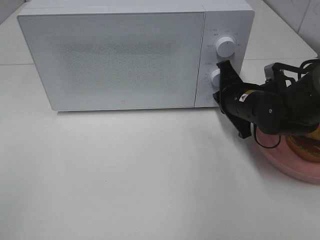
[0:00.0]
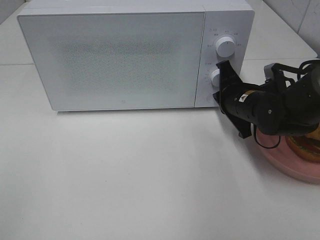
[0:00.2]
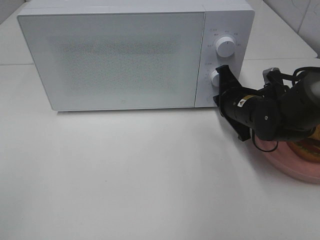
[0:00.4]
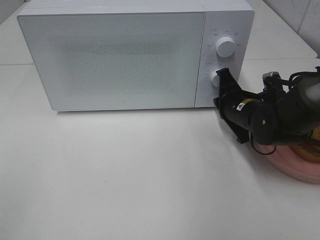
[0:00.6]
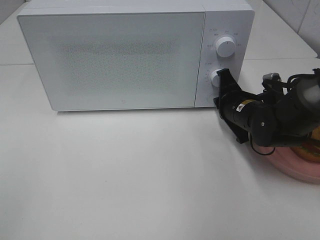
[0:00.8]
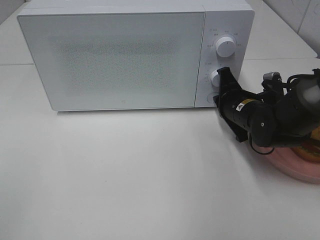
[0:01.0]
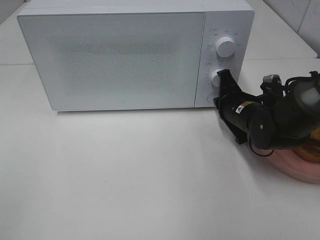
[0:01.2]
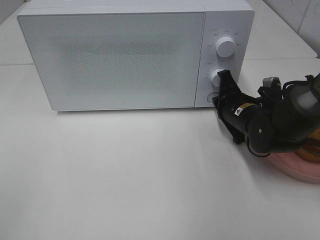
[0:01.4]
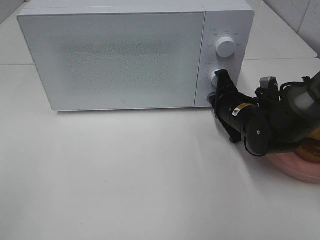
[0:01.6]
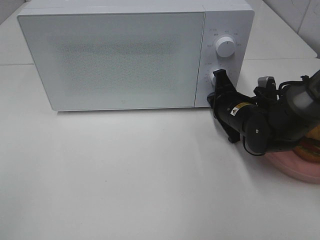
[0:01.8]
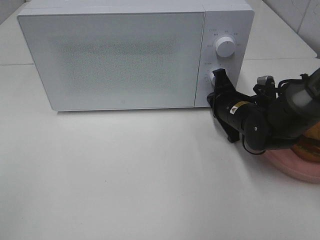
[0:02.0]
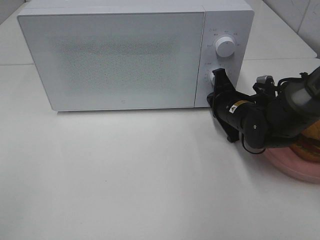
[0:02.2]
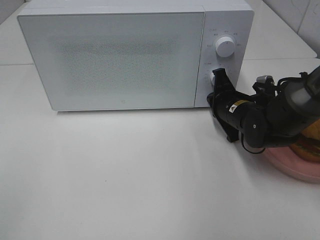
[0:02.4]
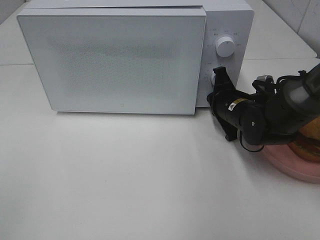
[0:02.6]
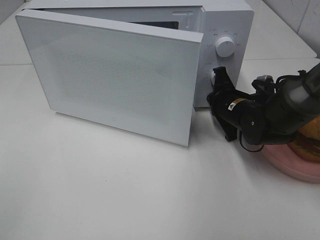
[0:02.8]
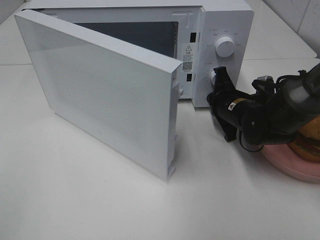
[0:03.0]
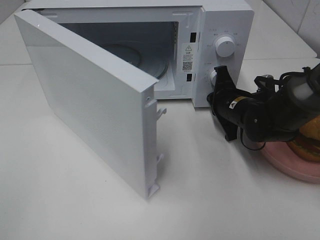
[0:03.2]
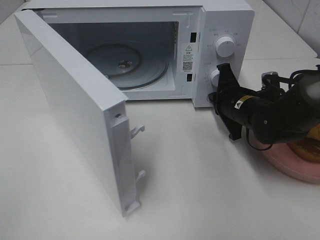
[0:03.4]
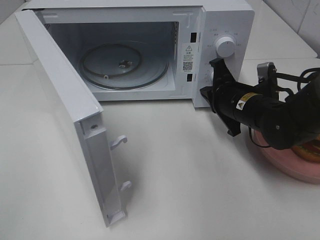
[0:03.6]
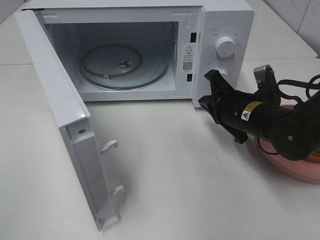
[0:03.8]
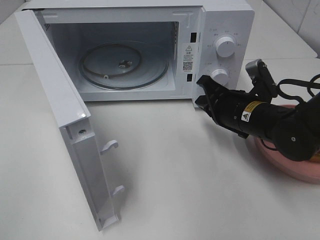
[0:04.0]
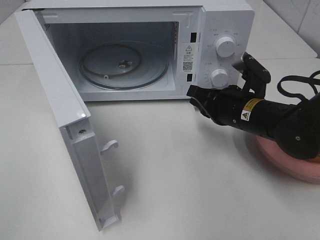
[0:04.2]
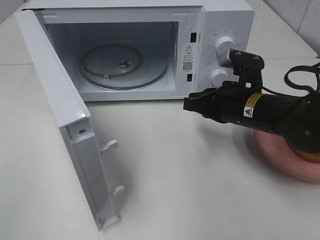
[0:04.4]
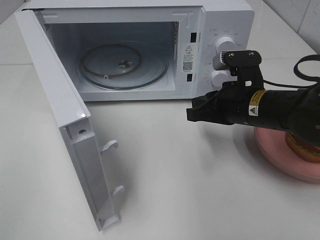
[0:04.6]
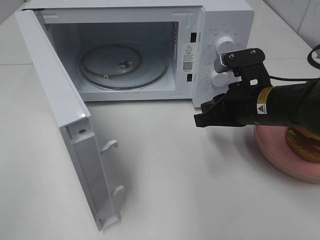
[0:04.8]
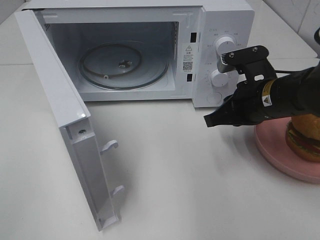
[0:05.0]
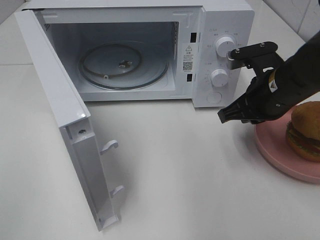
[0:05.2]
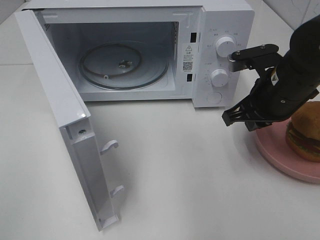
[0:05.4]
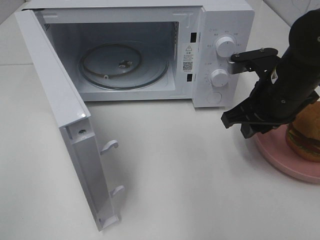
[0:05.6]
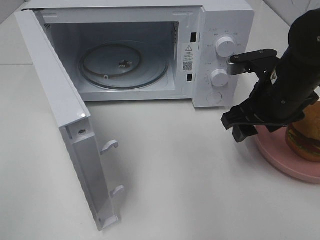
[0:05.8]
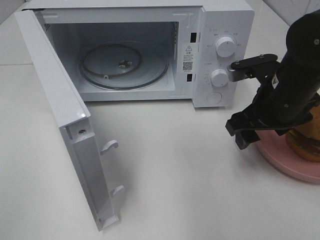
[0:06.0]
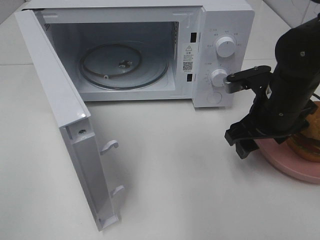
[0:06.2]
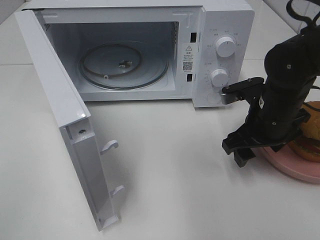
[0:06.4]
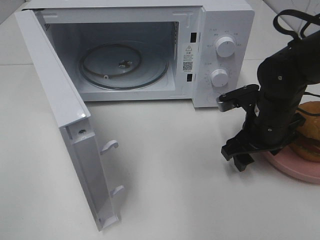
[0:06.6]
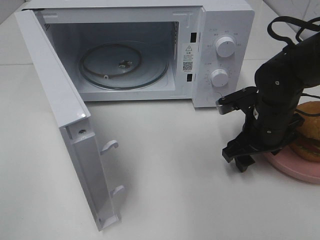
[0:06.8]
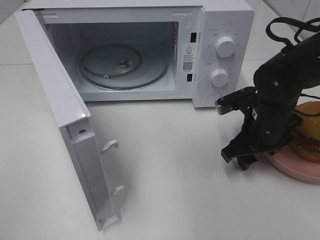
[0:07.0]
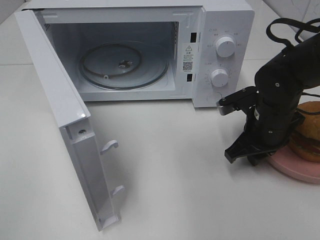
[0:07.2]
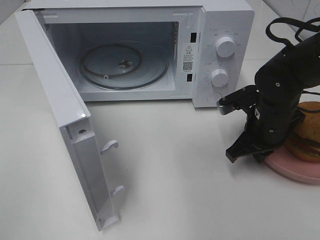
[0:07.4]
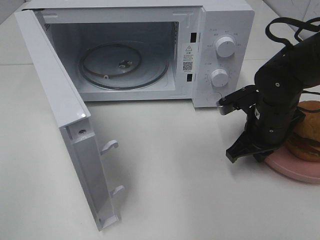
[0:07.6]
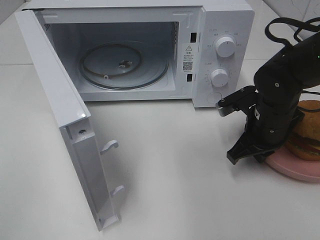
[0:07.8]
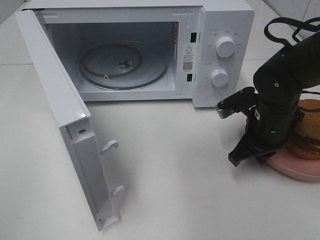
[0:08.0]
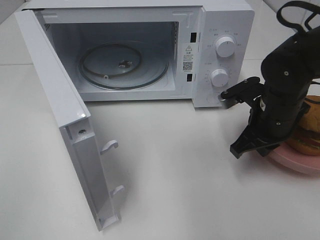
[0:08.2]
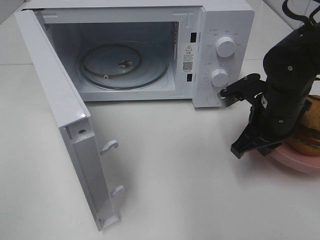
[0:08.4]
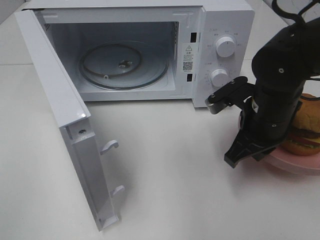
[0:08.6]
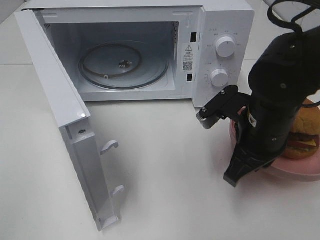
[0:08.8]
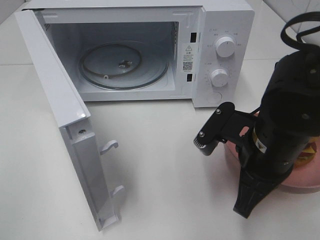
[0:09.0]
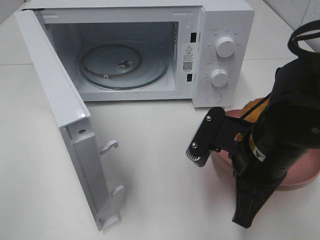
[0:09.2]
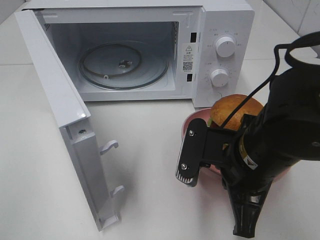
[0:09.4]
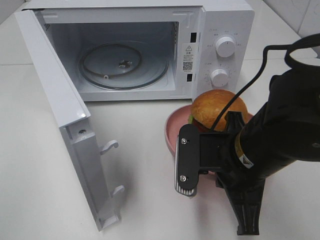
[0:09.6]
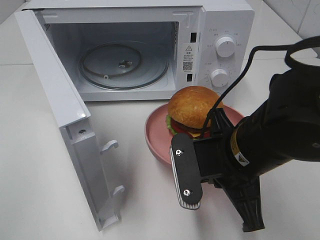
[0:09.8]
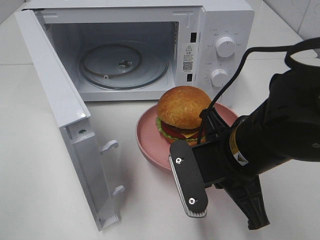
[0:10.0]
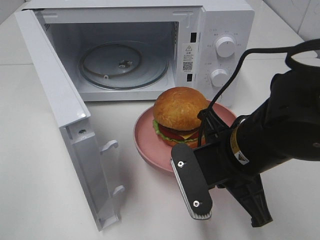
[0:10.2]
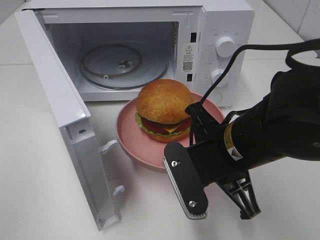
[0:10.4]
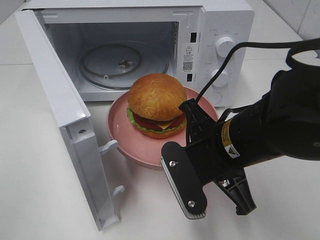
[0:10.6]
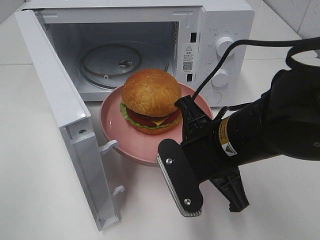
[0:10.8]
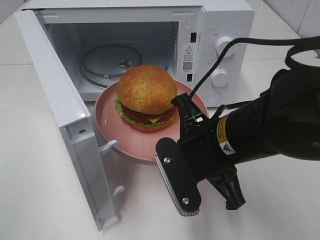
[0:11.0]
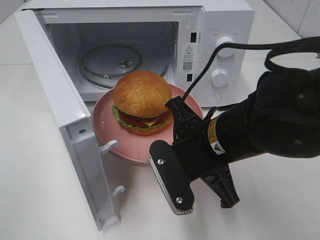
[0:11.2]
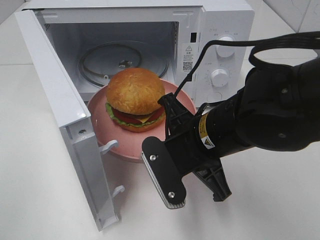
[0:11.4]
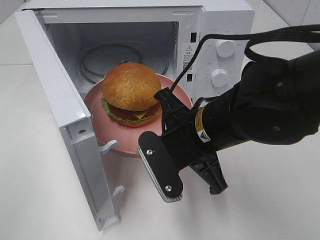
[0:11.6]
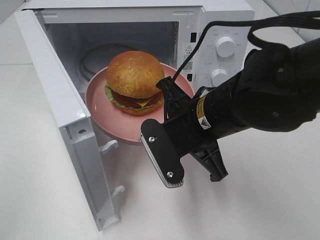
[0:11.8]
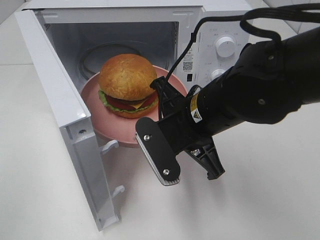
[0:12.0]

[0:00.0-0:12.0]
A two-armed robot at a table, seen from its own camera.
Task of the whole recording: Heat the burger.
Step, 0:00.0 to 0:03.4: Right hand: press the switch.
Step, 0:03.6 to 0:07.2: Right hand: grab the plate with the hamburger.
0:00.0 to 0:03.0: The grippers stay close to where they were, moving slightly.
0:03.0 to 0:04.4: The right gripper shifts approximately 10 cm backward and upward.
0:04.4 to 0:06.0: The right gripper ends up approximately 5 cm from where it was, and opens.
0:06.0 to 0:07.6: The right gripper moves downward, approximately 5 cm, and closes its fingers.
0:07.6 to 0:09.0: The right gripper heads backward and upward, covering some 10 cm.
0:10.4 to 0:12.0: The right gripper changes place by approximately 5 cm.

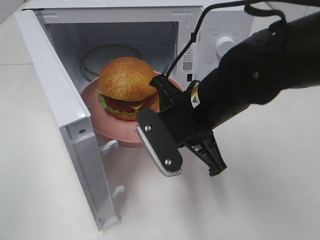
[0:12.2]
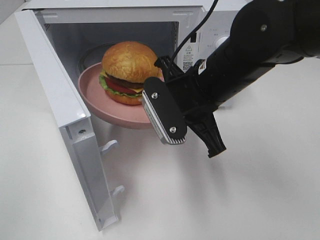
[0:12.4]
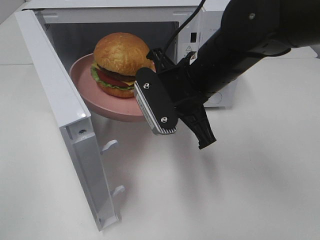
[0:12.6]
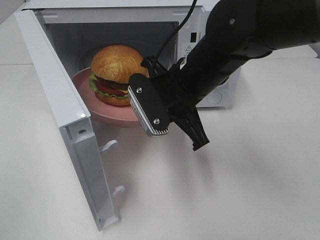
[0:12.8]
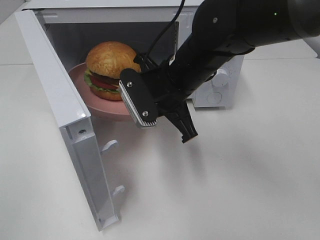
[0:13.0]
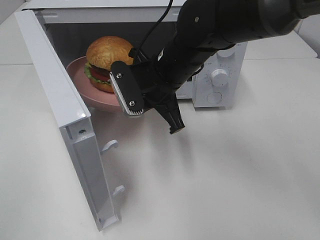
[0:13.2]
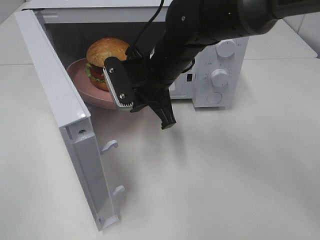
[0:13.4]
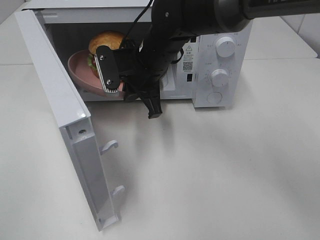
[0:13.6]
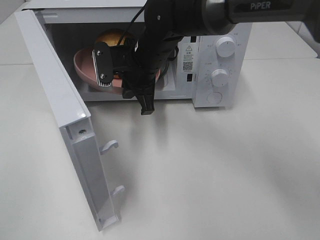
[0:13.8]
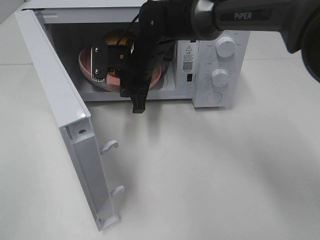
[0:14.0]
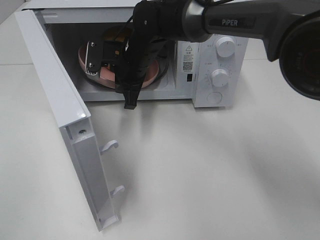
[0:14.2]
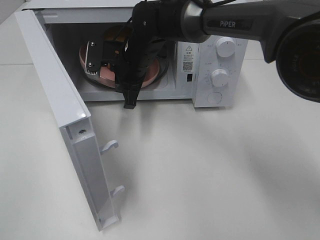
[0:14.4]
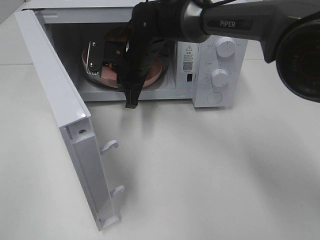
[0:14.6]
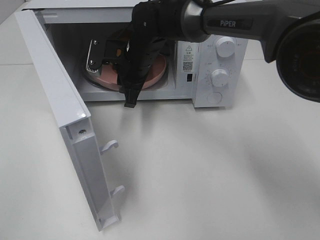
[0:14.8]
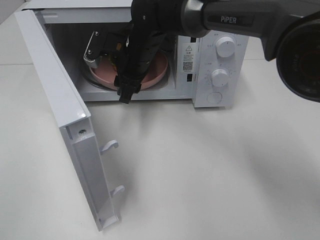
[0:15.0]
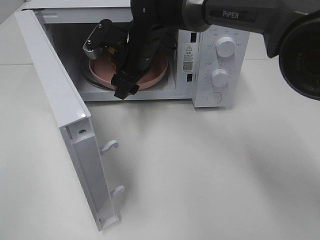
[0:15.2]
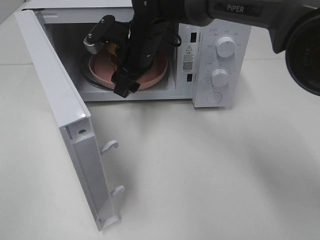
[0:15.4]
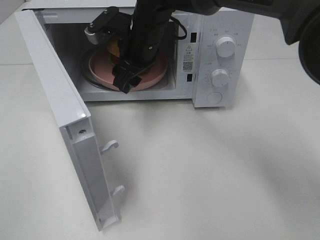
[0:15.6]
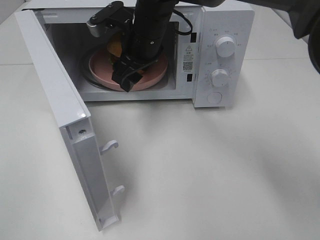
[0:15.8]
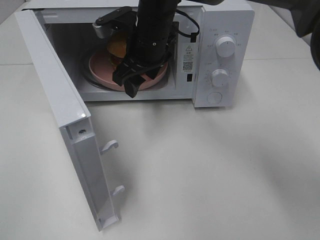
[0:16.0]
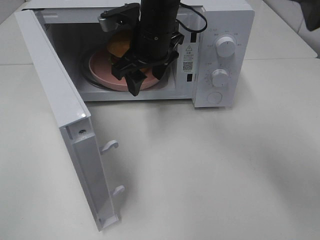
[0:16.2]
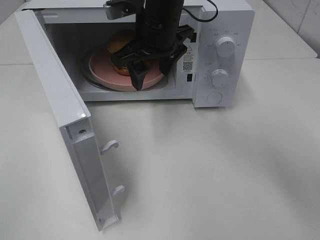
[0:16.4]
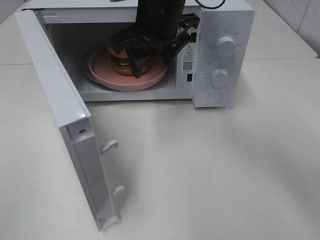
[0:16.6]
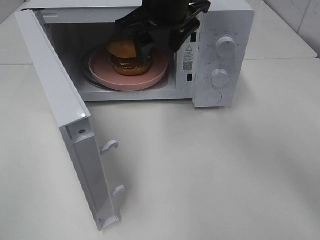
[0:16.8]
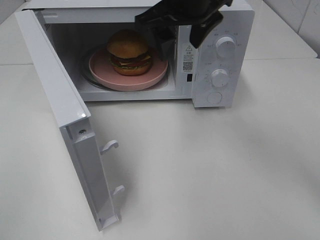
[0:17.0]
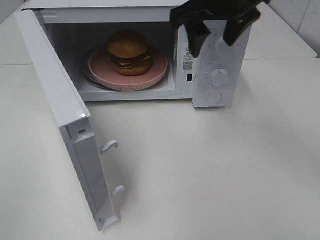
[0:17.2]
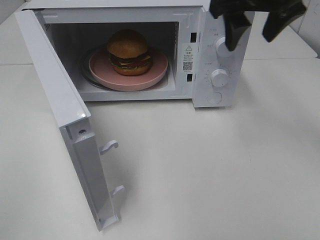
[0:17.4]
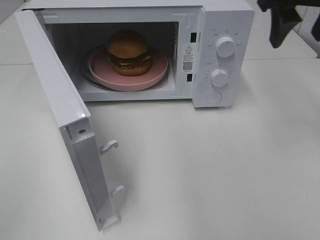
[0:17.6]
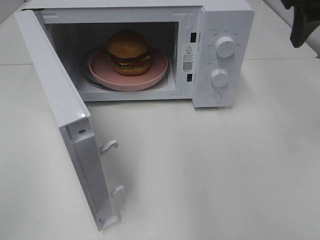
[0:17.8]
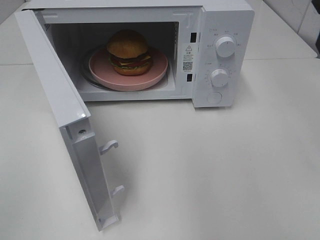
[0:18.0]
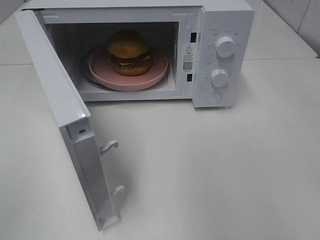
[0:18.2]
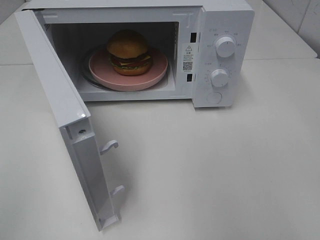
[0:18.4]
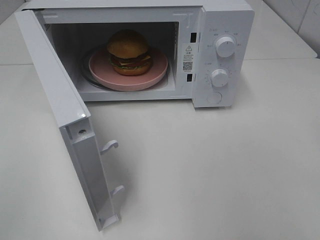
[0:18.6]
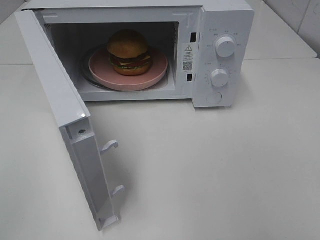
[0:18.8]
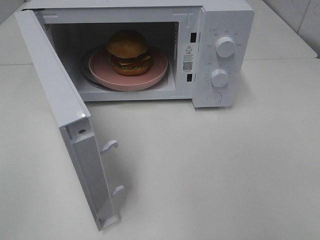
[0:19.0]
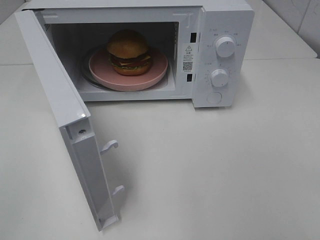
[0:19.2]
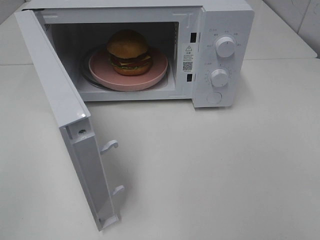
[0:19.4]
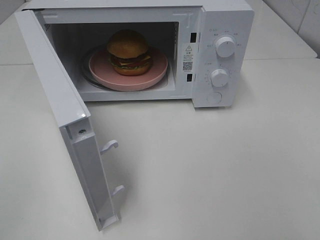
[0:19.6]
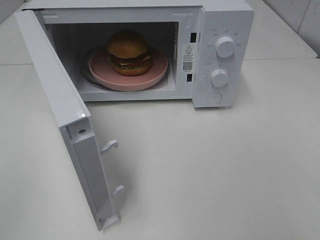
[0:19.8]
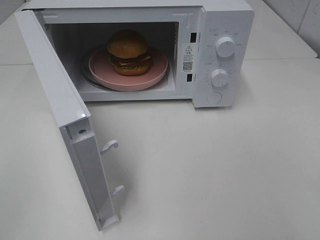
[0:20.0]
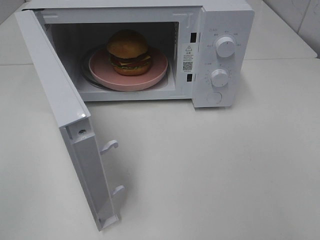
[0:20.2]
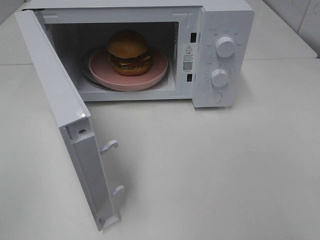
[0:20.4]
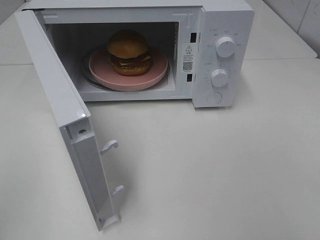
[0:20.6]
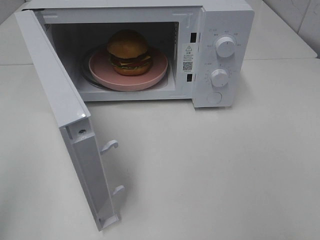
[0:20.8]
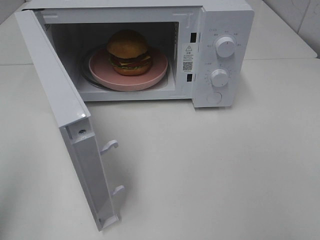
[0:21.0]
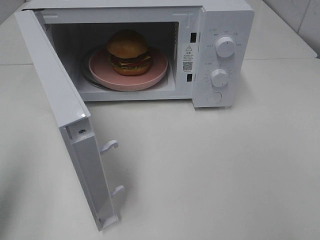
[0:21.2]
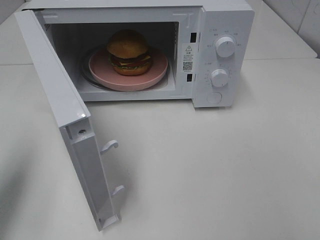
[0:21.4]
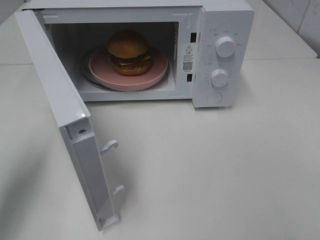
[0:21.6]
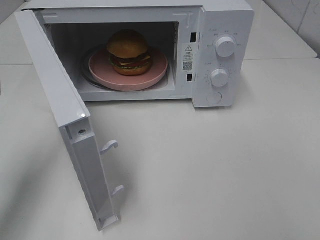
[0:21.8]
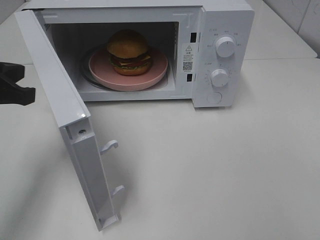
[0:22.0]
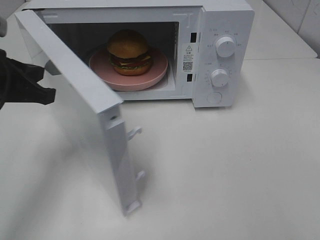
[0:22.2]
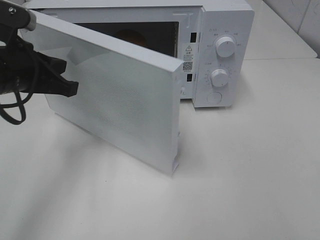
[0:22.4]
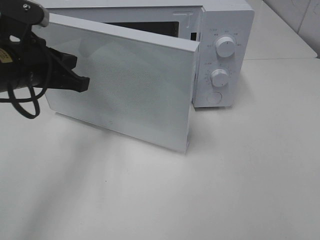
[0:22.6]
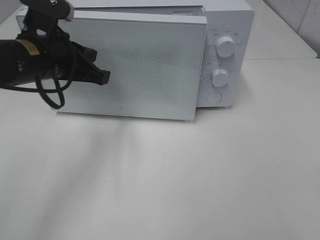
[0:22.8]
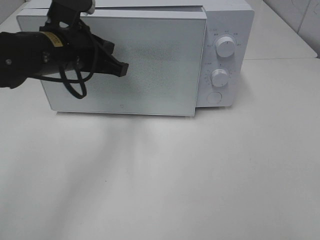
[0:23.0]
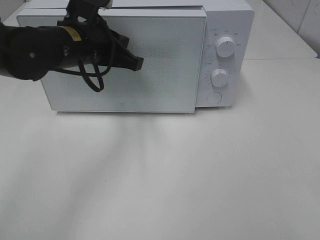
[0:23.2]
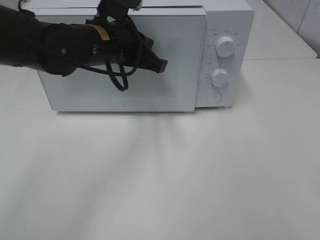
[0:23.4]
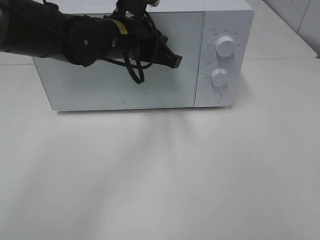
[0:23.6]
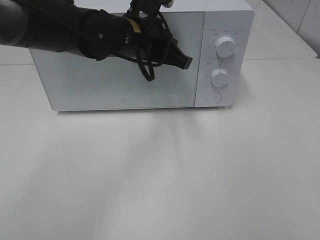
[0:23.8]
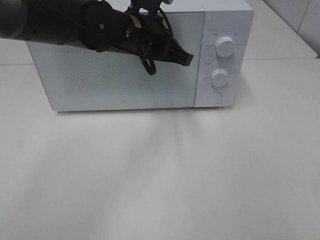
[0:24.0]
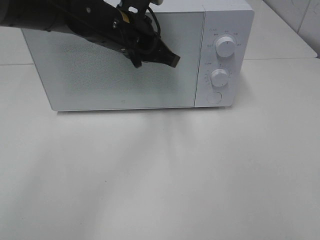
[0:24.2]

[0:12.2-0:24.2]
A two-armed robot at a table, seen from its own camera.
Task of the whole recording: Heat the burger.
Step, 0:12.2 to 0:14.8: Right hand: place the plate in the microwave.
Step, 0:15.0 to 0:24.0: Left hand: close the microwave door.
0:12.2 to 0:13.8: The right gripper shifts roughly 15 cm forward and to the left.
0:13.8 to 0:15.2: The right gripper opens.
0:15.2 to 0:16.6: The right gripper shifts some 10 cm upward.
0:16.6 to 0:18.2: The right gripper shifts about 30 cm to the right and backward.
0:19.8 to 0:21.2: The left gripper is displaced forward by approximately 10 cm.
0:21.2 to 0:22.6: The left gripper heads forward, to the right and downward, covering approximately 25 cm.
0:22.6 to 0:24.2: The left gripper goes approximately 15 cm to the right and forward.
